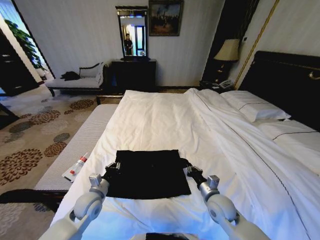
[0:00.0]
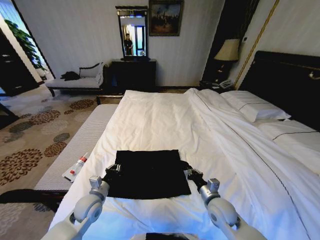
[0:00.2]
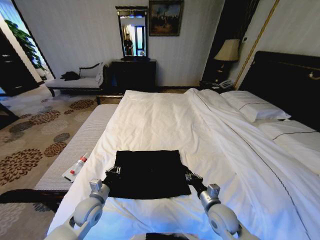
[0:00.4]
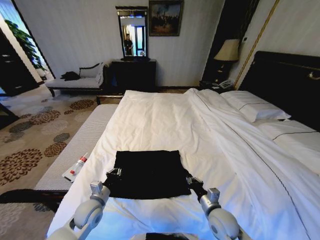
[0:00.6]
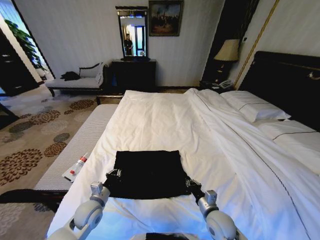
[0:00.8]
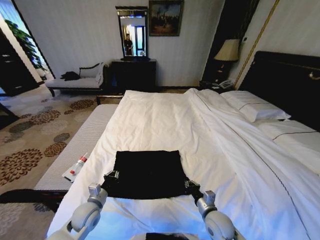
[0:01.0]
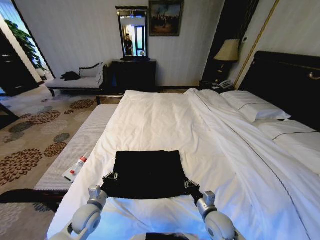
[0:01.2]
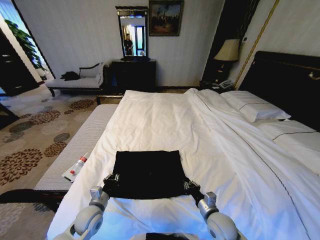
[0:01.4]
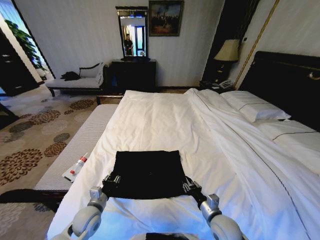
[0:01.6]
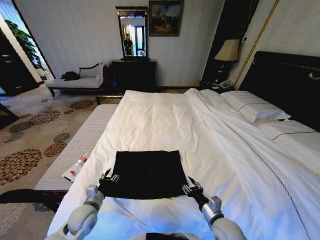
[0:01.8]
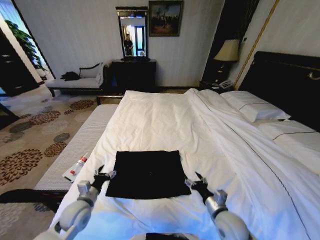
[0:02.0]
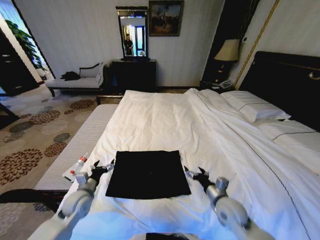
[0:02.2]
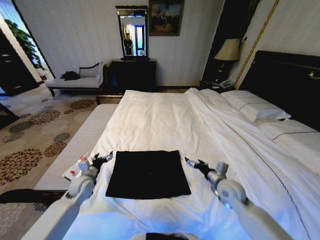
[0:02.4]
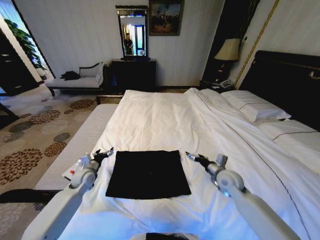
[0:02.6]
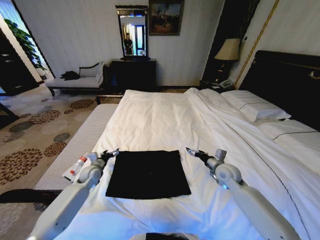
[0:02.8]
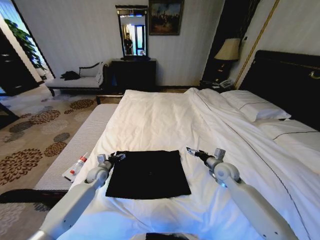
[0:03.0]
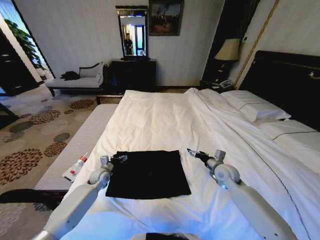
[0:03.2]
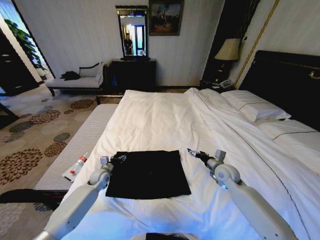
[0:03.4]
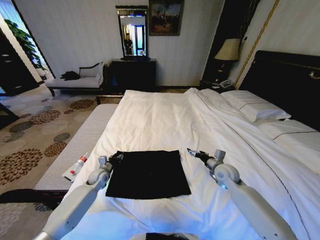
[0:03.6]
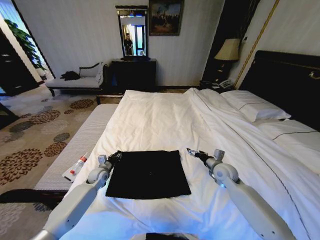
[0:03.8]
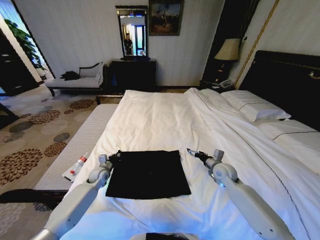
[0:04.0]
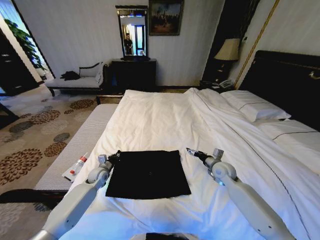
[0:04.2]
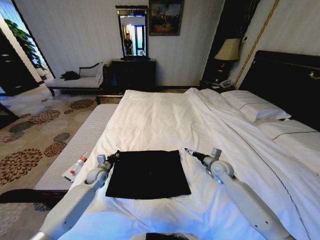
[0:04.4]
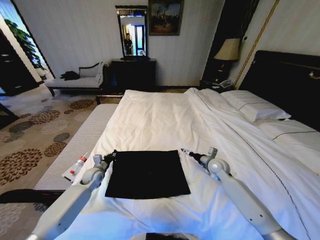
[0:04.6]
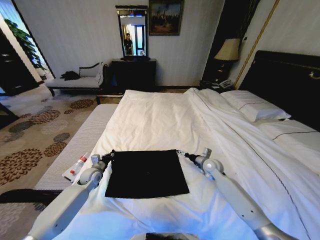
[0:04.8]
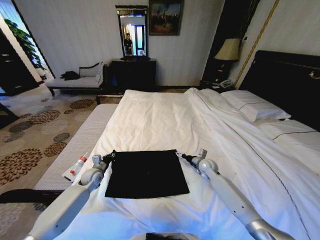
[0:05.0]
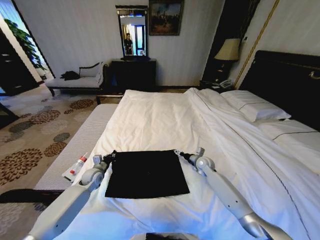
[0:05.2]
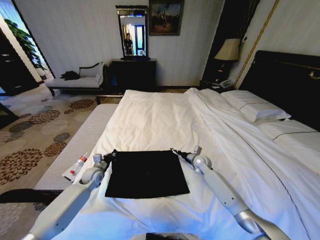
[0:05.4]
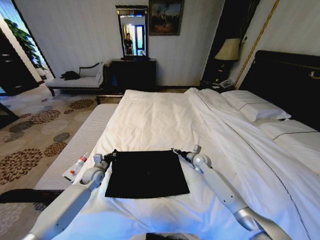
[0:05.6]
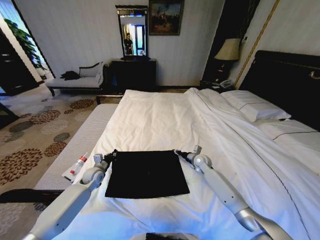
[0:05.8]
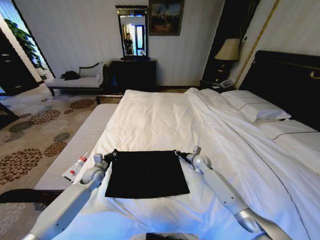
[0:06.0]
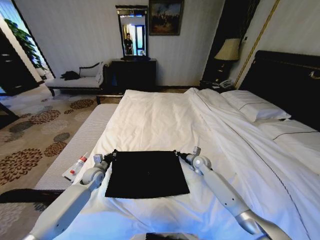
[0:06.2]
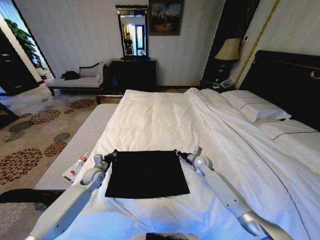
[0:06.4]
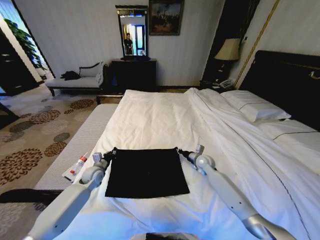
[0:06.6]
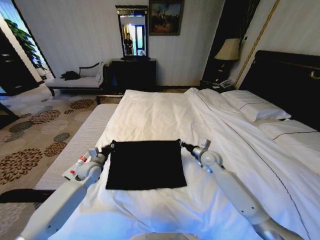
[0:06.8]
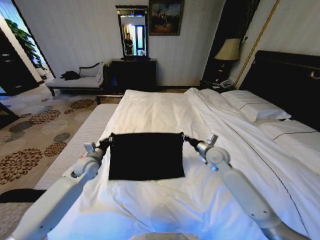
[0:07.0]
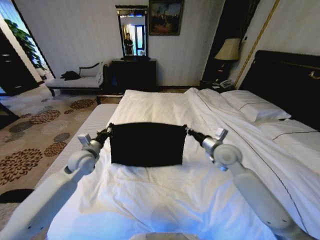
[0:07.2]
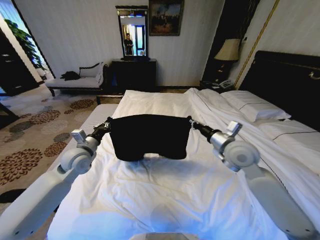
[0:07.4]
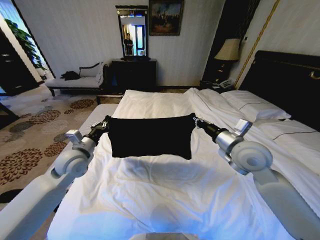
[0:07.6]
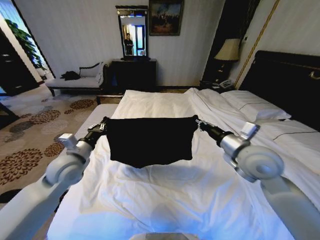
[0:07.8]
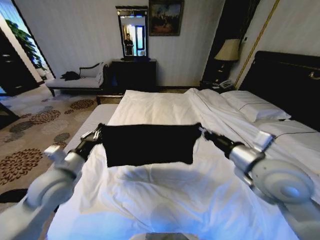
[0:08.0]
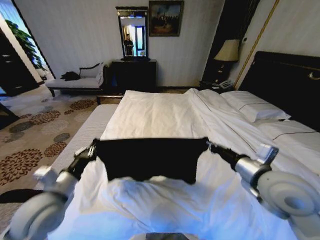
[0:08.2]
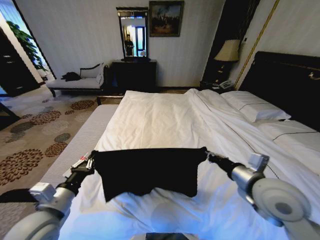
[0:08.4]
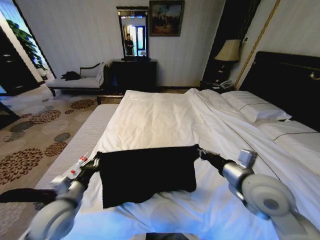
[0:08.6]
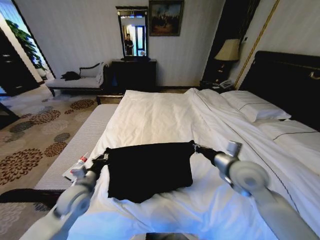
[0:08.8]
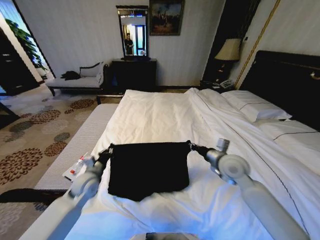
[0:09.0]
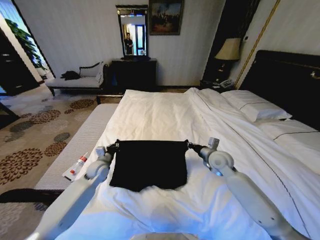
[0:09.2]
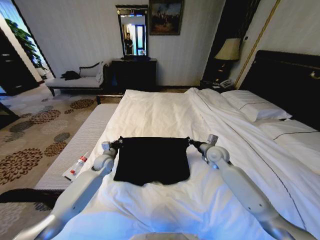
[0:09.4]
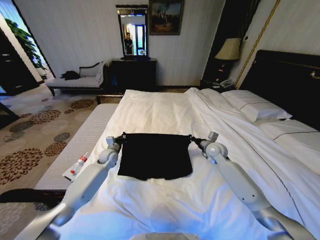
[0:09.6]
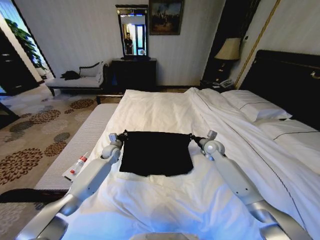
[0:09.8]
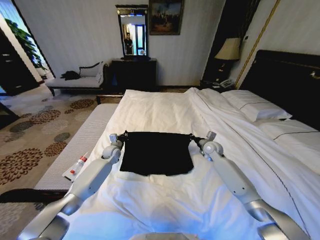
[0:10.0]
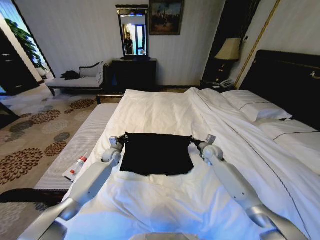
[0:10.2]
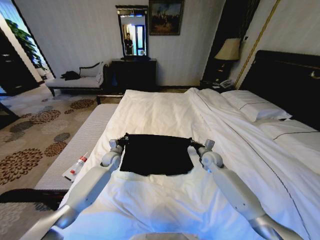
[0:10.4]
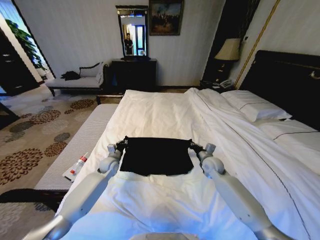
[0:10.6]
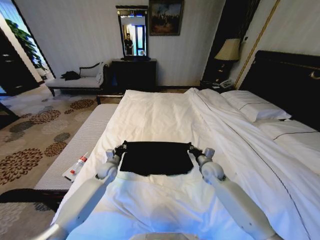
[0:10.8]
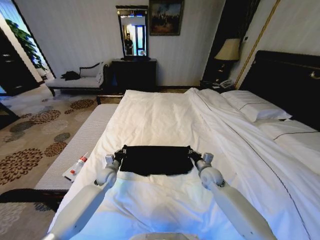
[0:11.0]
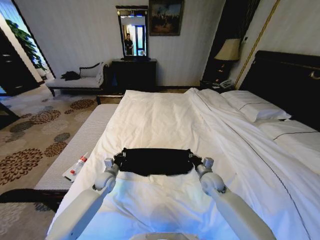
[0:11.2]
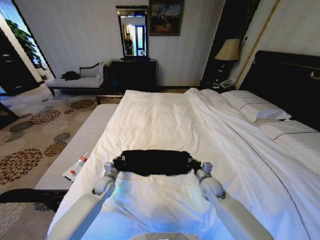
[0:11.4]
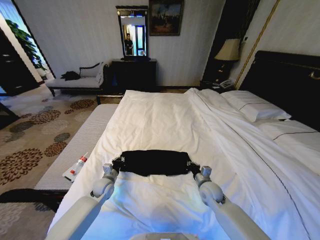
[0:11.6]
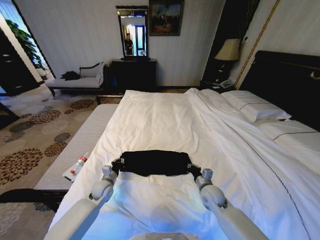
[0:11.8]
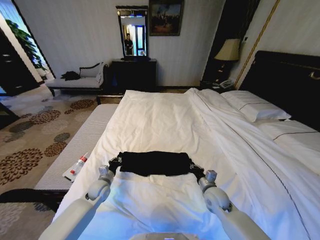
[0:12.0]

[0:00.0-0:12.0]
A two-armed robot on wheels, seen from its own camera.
Task of the whole recording: Fold the clothes on the bed.
0:00.0 to 0:01.6: The right gripper heads backward, covering roughly 5 cm. Meanwhile the left gripper moves some 5 cm, and opens its fingers.
0:01.6 to 0:03.0: The grippers both shift forward by about 20 cm. The right gripper opens, while the left gripper opens its fingers.
0:03.0 to 0:04.4: The left gripper closes up.
0:04.4 to 0:06.0: The right gripper travels forward, downward and to the left by some 10 cm, and closes up.
0:06.0 to 0:07.6: The left gripper shifts about 20 cm upward. Meanwhile the right gripper shifts roughly 30 cm upward and backward.
0:07.6 to 0:09.0: Both grippers travel together downward, about 10 cm. The left gripper moves some 20 cm backward and comes back, while the right gripper reaches roughly 10 cm backward, then returns.
0:09.0 to 0:10.4: The left gripper moves forward and downward, some 15 cm, while the right gripper moves downward and forward, some 15 cm.
0:10.4 to 0:12.0: The two grippers go some 15 cm backward.

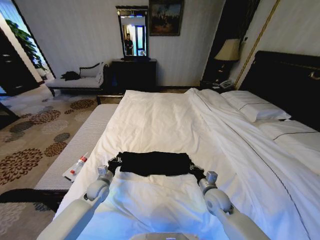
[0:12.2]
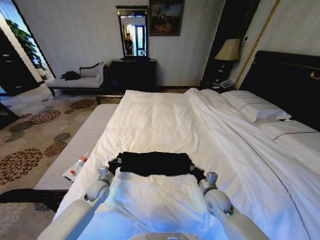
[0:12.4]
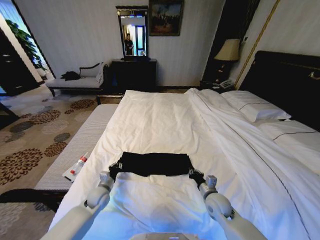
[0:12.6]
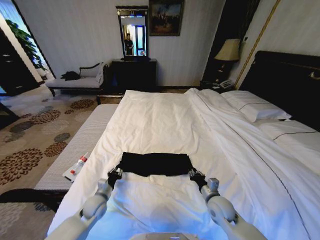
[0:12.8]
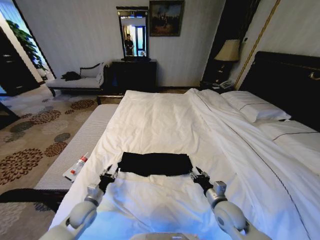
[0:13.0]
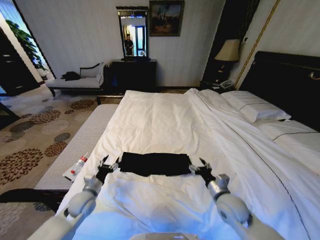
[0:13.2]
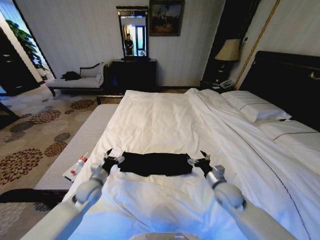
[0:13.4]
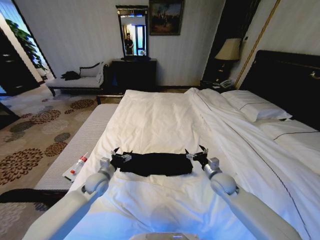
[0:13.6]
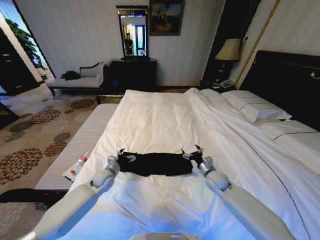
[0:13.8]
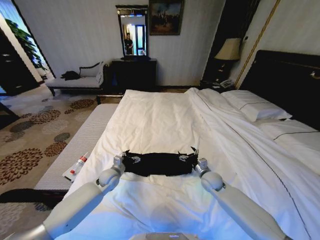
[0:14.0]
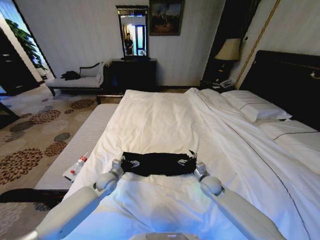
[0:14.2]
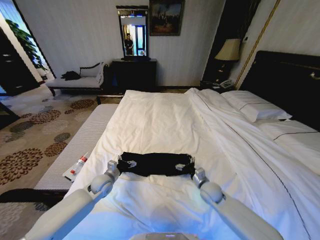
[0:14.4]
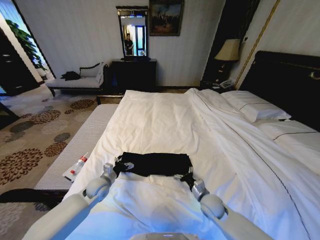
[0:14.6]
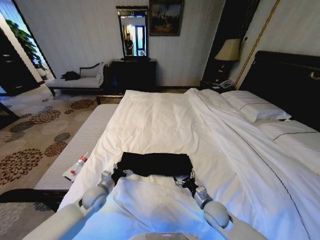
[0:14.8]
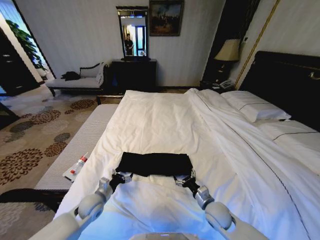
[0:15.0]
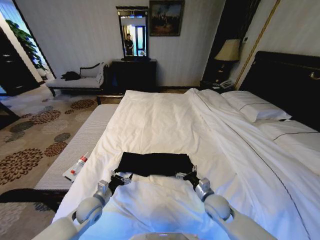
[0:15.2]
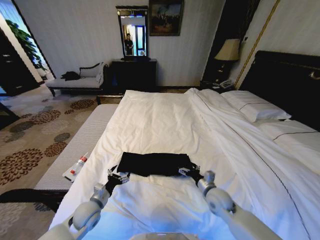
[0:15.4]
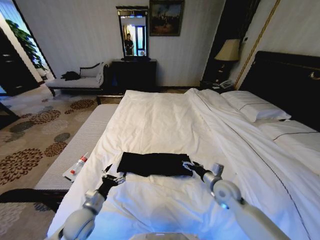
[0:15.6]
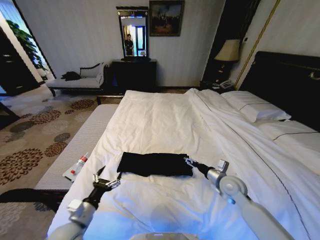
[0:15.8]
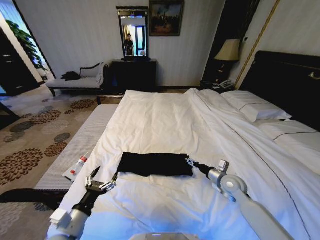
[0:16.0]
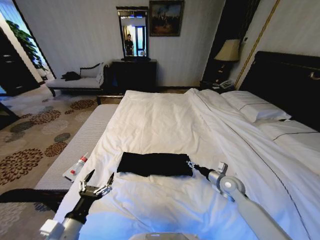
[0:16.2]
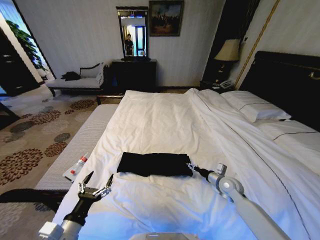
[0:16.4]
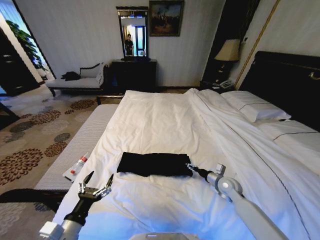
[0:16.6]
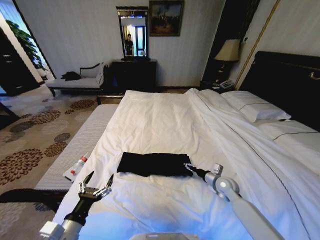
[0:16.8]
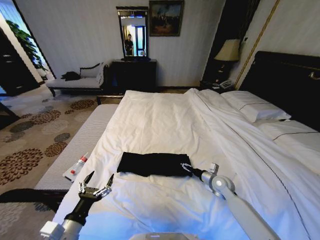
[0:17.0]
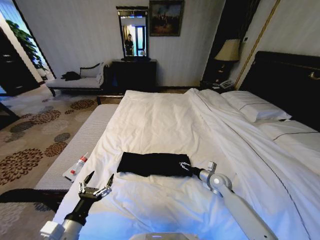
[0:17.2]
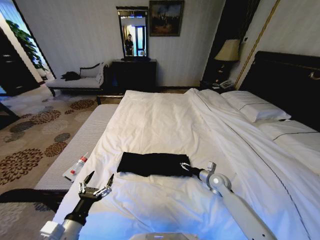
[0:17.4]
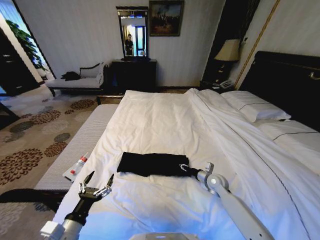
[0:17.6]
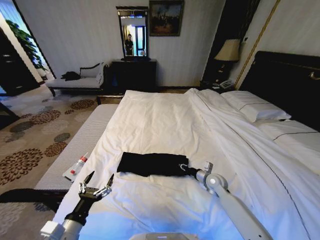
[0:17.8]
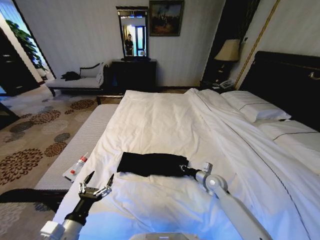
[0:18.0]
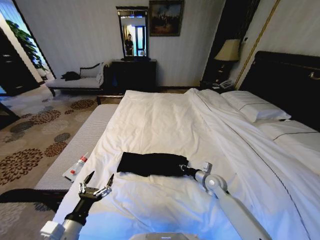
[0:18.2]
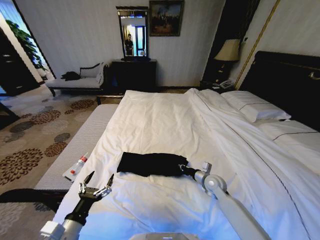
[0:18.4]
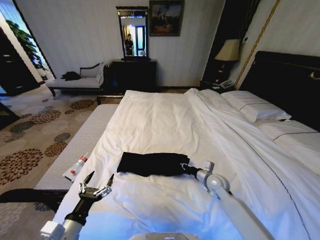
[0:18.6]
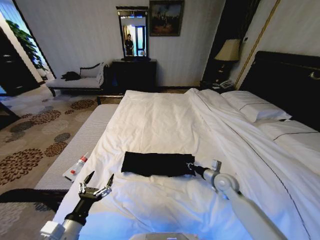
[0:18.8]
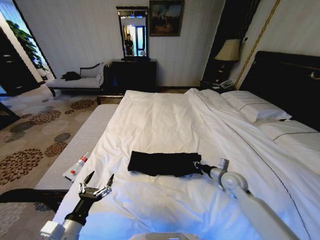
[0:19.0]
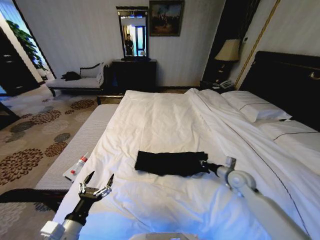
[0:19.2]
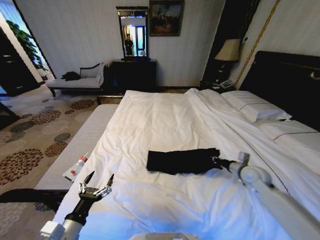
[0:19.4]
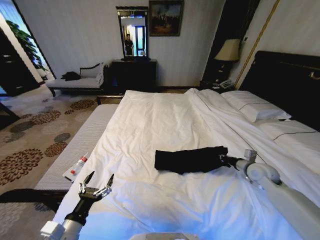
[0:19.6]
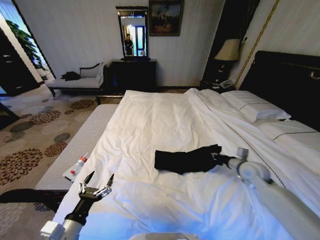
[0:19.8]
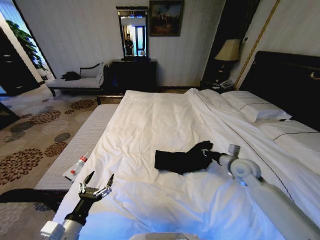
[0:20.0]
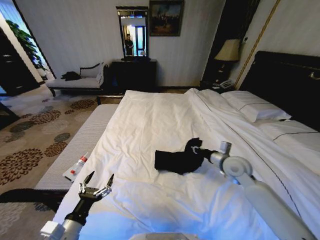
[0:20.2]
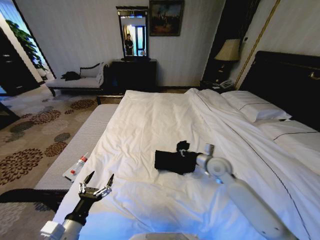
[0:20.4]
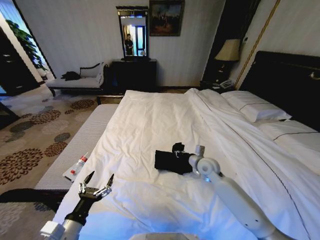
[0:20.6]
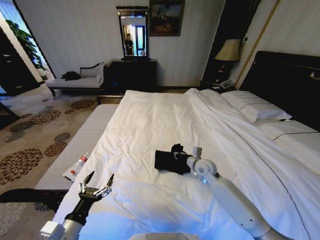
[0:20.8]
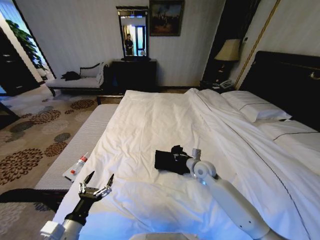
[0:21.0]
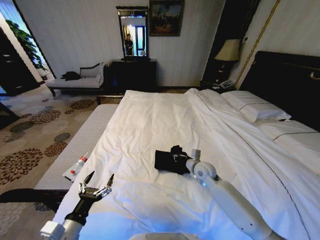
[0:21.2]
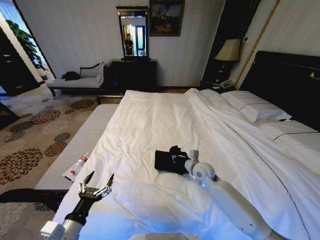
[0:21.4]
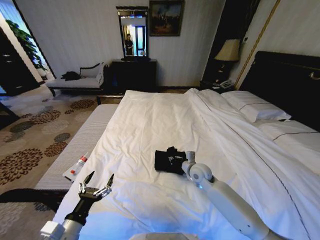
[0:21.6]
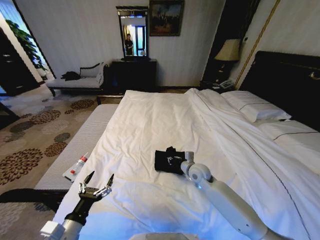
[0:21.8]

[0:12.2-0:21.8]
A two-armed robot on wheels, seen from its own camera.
Task of the whole recording: Fold the clothes on the bed.
0:12.2 to 0:13.8: The left gripper reaches roughly 10 cm backward, then returns, and opens up. Meanwhile the right gripper shifts approximately 10 cm forward, and opens its fingers.
0:13.8 to 0:15.4: The right gripper travels backward by some 10 cm; the left gripper heads backward, covering about 15 cm.
0:15.4 to 0:17.0: The left gripper heads backward and upward, covering approximately 15 cm. The right gripper goes about 10 cm forward and to the right.
0:17.0 to 0:18.6: The right gripper closes.
0:18.6 to 0:20.2: The right gripper travels upward by some 15 cm, and goes to the right and returns, roughly 15 cm each way.
0:20.2 to 0:21.8: The right gripper travels to the left and downward by about 15 cm.
